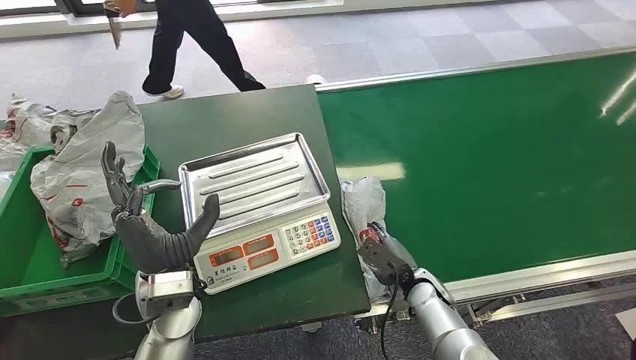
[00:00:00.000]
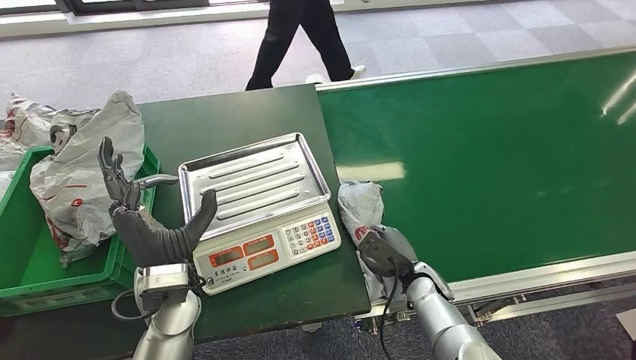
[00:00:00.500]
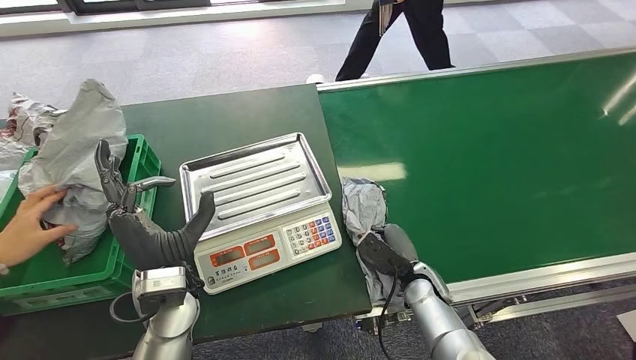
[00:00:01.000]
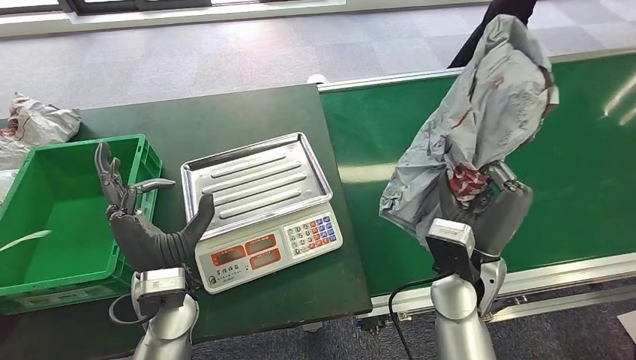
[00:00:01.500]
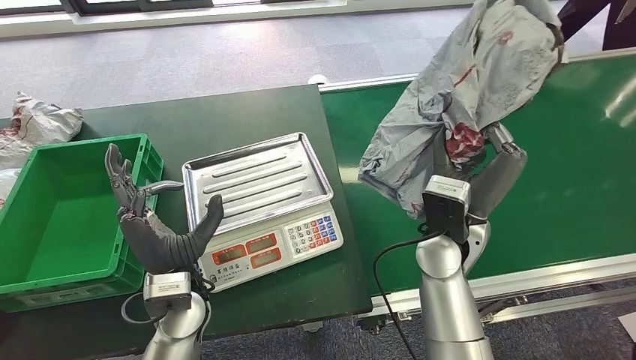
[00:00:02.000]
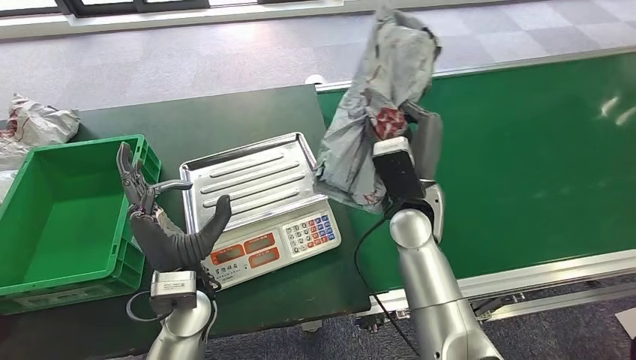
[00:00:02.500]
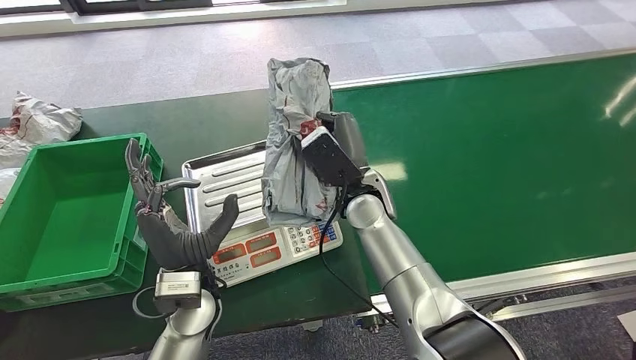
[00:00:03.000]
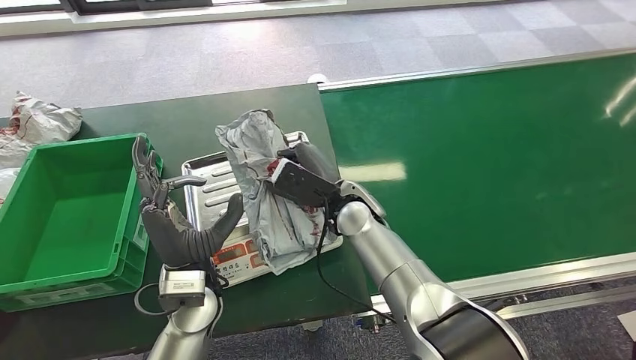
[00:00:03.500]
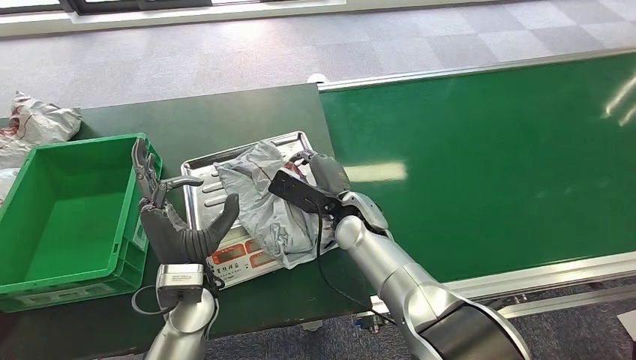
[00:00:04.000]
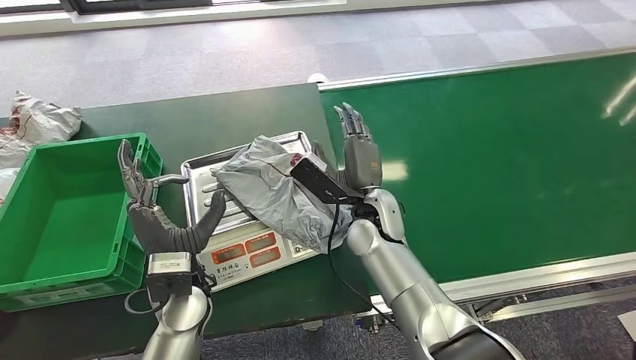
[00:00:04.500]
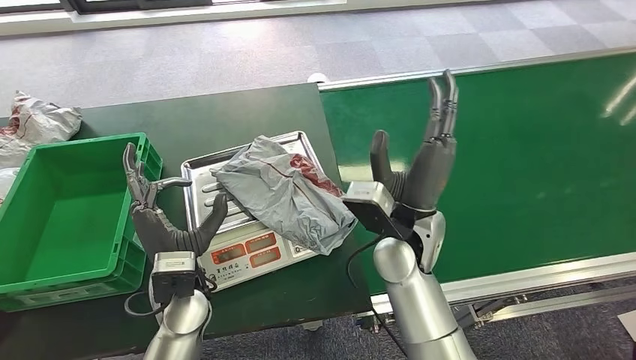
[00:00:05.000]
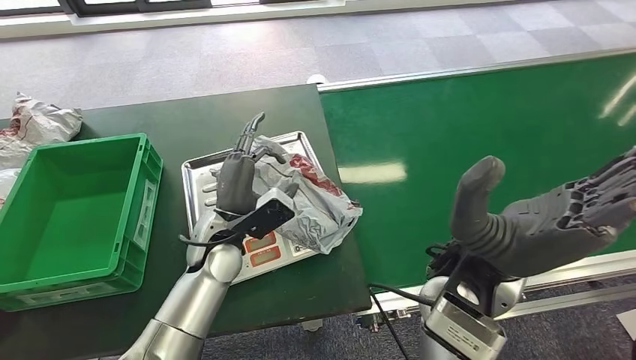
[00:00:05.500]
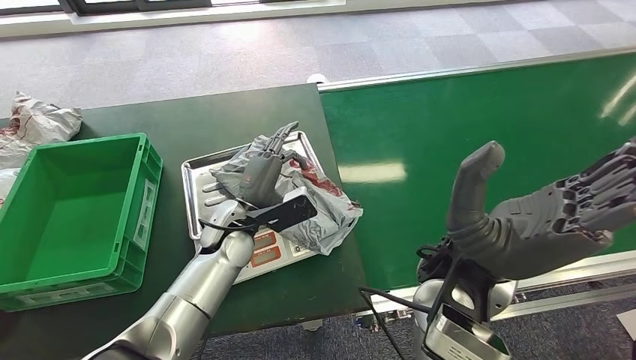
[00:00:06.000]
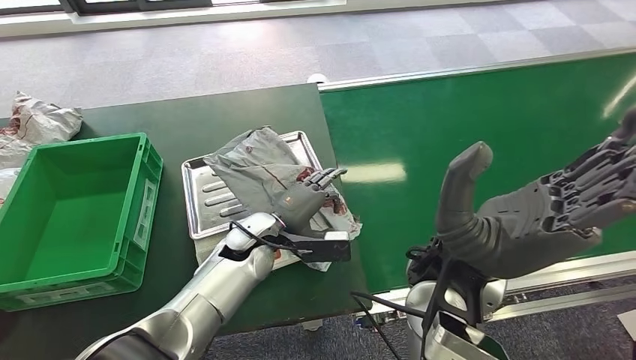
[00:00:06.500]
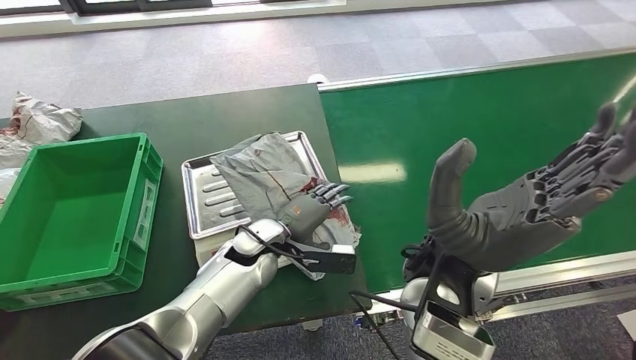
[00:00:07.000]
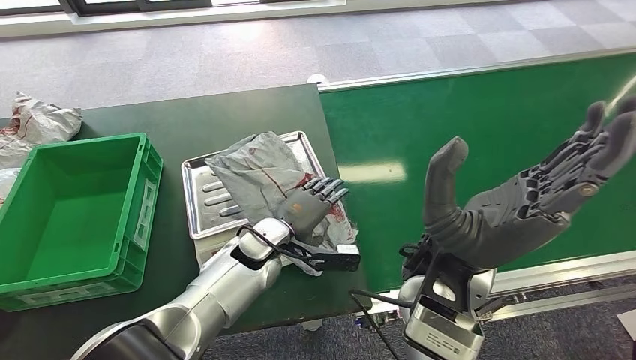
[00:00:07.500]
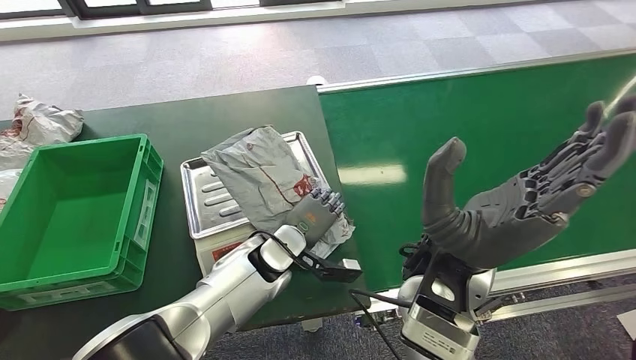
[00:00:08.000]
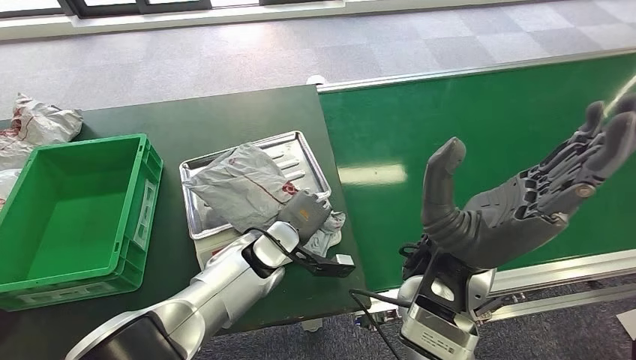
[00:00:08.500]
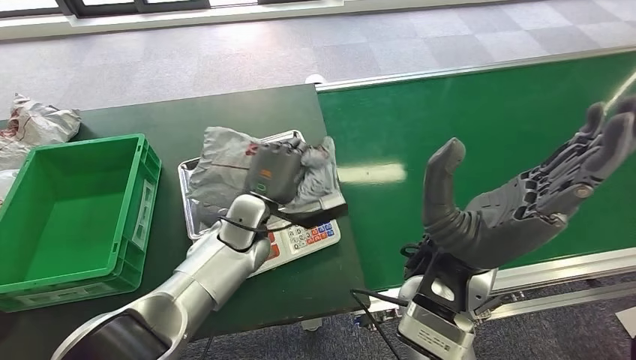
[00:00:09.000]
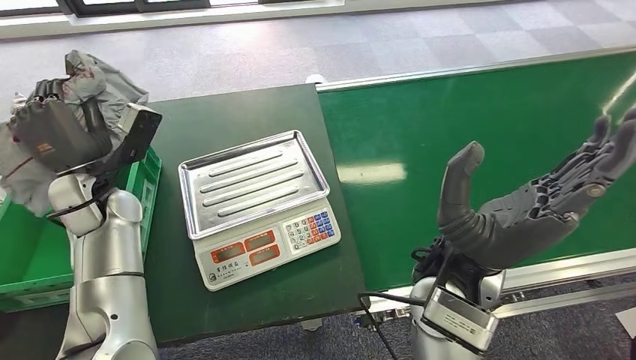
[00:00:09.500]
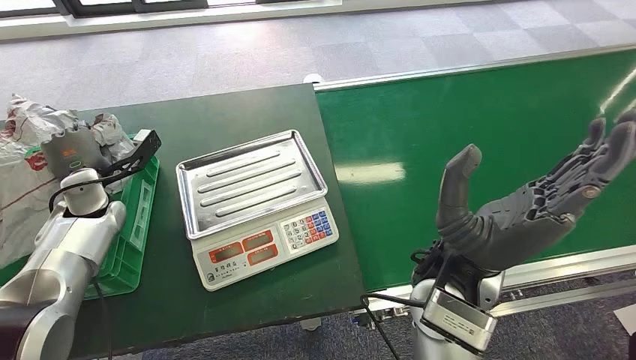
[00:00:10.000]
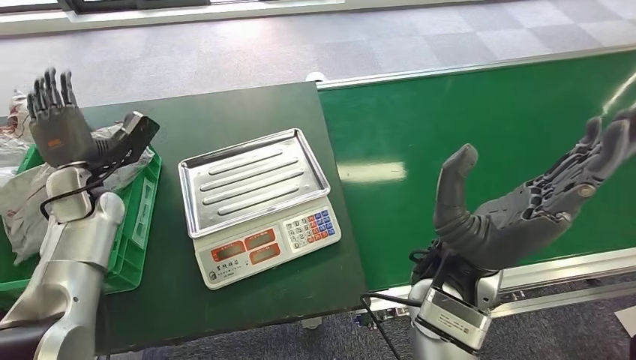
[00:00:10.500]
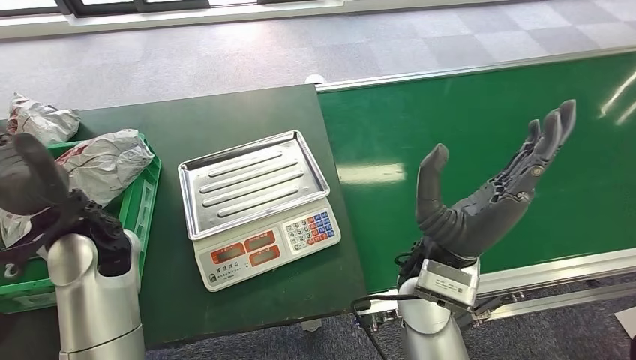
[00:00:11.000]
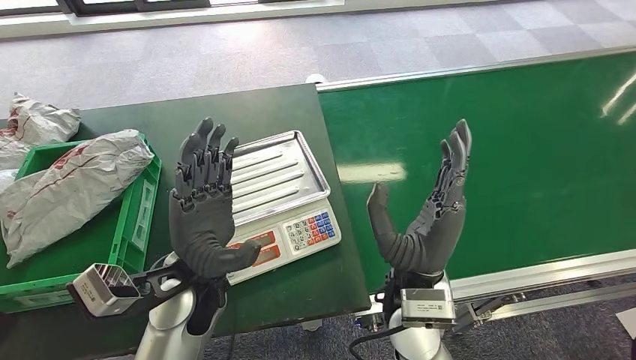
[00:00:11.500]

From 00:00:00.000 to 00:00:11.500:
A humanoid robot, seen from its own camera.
Step, from 00:00:00.000 to 00:00:02.000: Pick up the package from the conveyor belt.
Step, from 00:00:02.500 to 00:00:04.500: Place the package onto the inbound machine.
Step, from 00:00:05.000 to 00:00:09.000: Pick up the package from the inbound machine.
Step, from 00:00:10.000 to 00:00:11.500: Place the package into the parcel locker.
From 00:00:04.000 to 00:00:06.000: The right hand goes some 20 cm upward, backward and to the right. Meanwhile the left hand heads forward, covering roughly 10 cm.
From 00:00:06.000 to 00:00:07.500: The left hand changes place by approximately 5 cm.

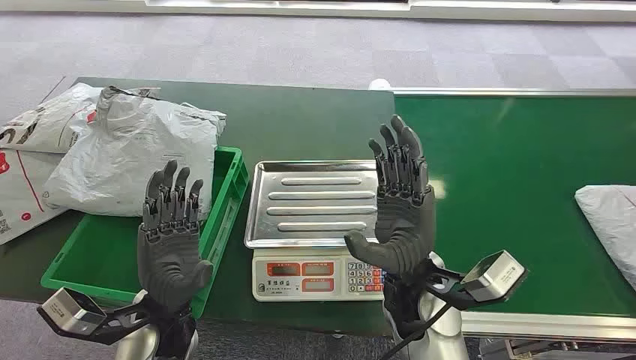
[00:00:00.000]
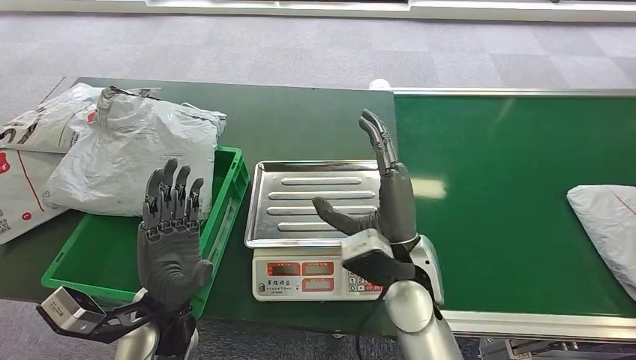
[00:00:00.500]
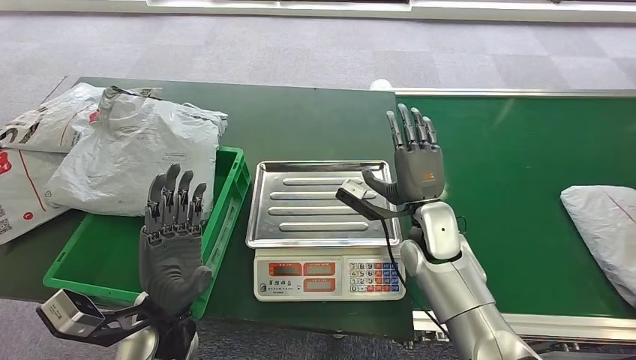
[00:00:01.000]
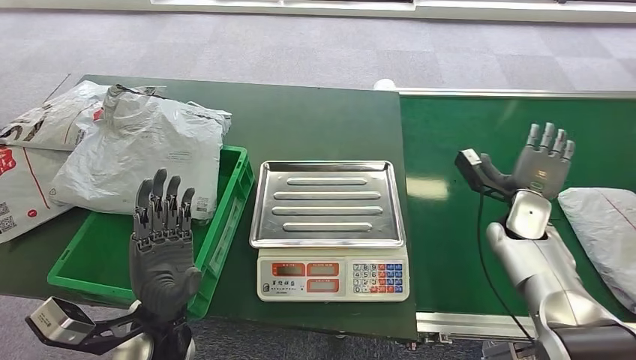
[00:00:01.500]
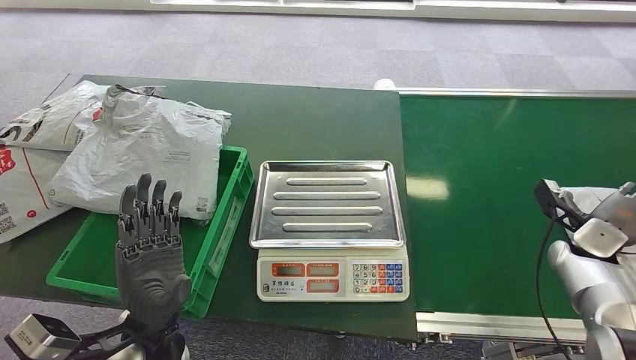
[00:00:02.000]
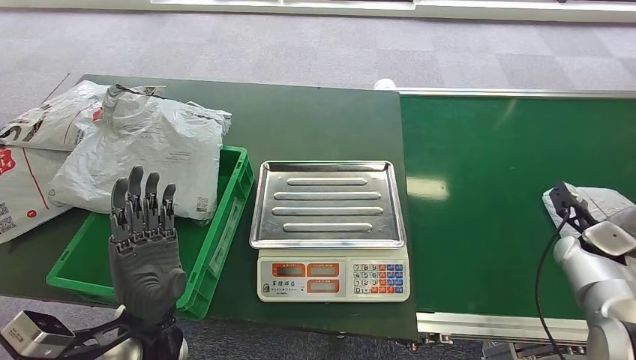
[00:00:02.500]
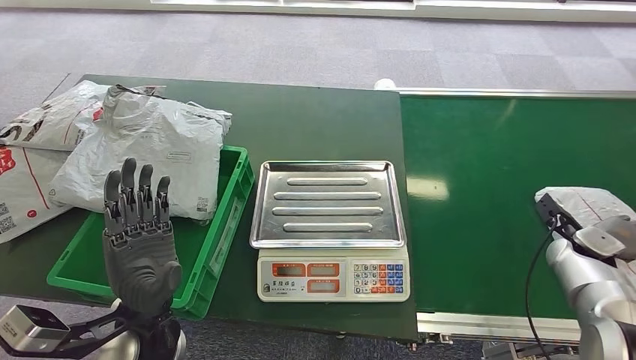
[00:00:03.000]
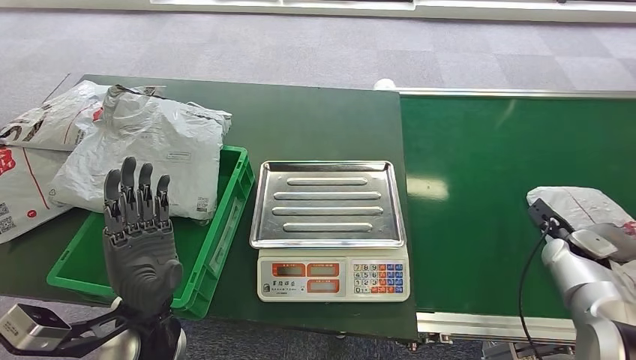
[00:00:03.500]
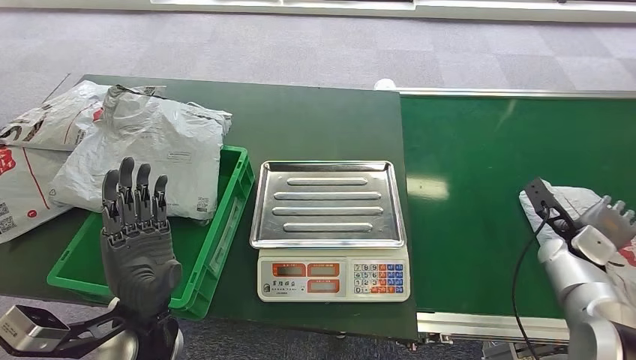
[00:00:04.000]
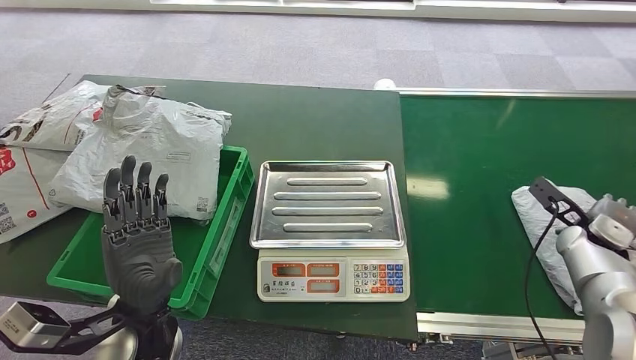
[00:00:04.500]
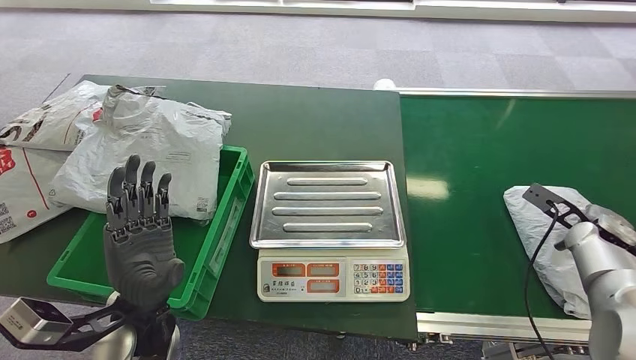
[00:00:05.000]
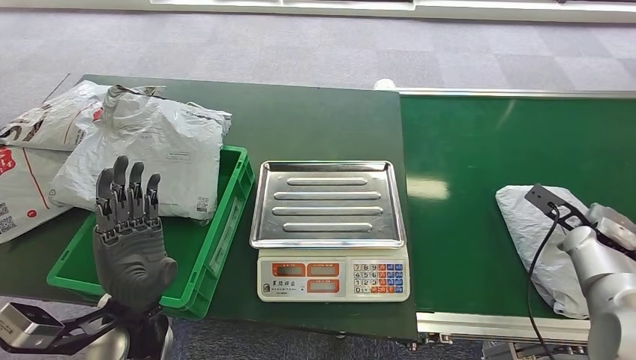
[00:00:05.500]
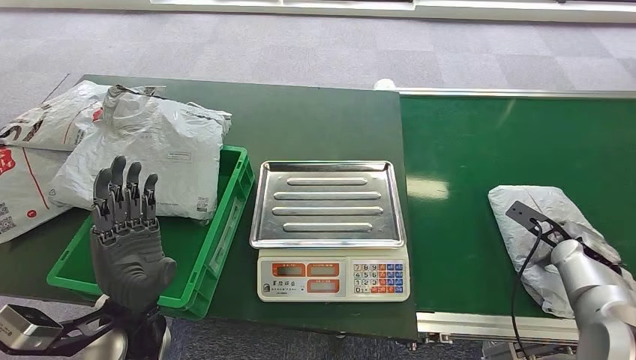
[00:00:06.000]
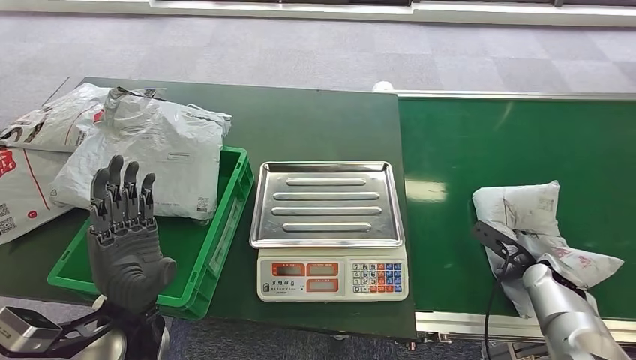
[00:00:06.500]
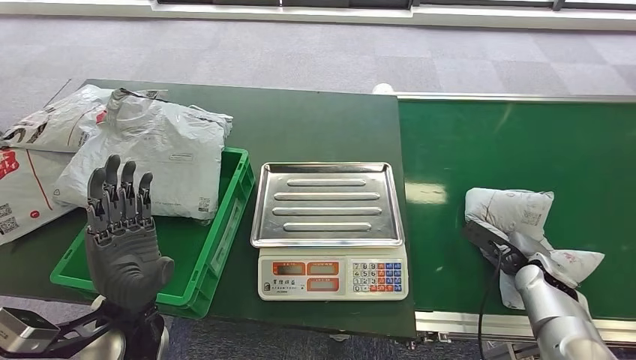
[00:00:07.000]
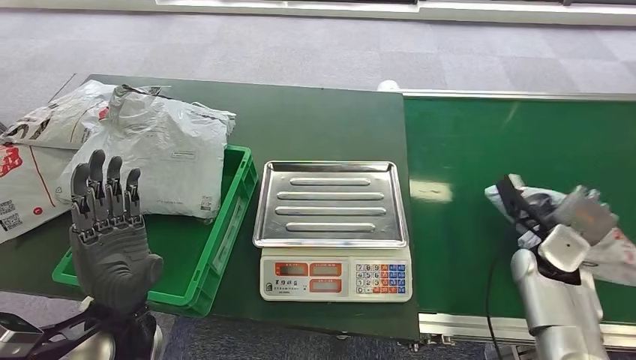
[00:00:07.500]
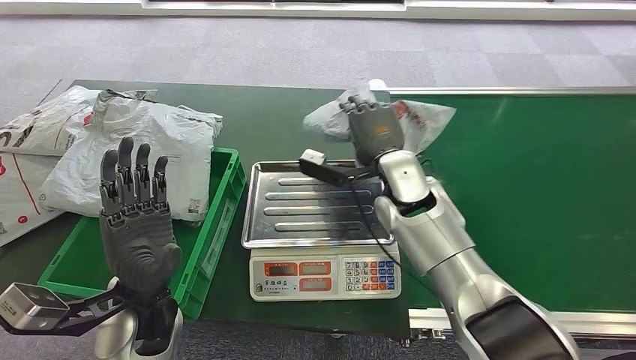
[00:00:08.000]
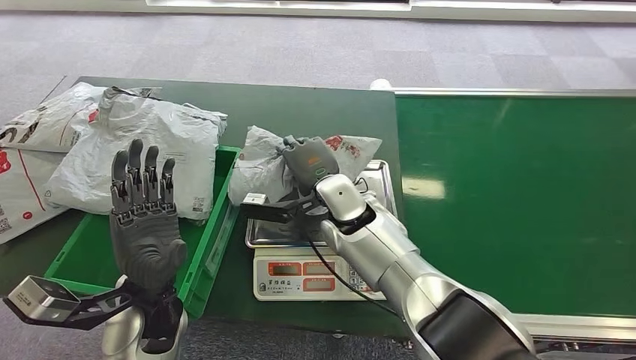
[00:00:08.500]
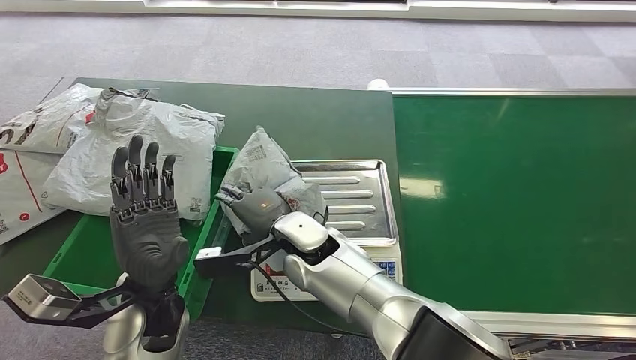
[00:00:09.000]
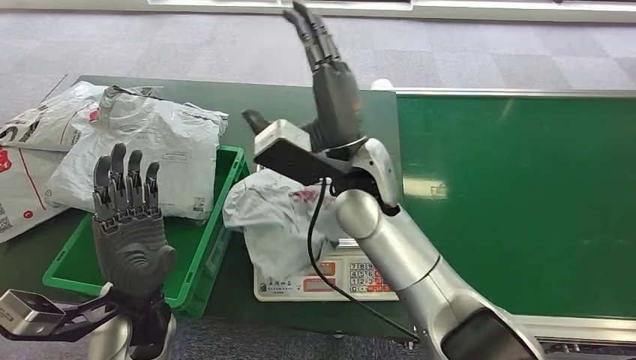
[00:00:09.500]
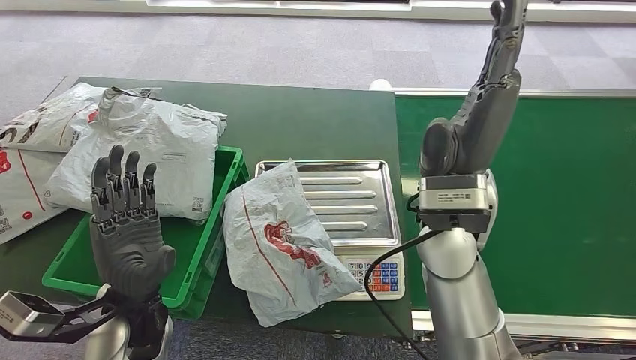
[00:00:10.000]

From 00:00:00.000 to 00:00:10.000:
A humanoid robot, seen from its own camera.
Step, from 00:00:00.000 to 00:00:07.500: Pick up the package from the conveyor belt.
